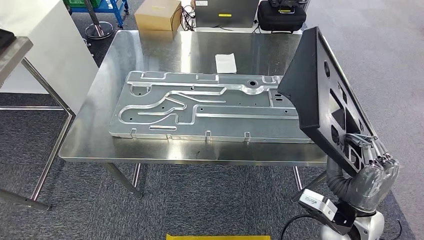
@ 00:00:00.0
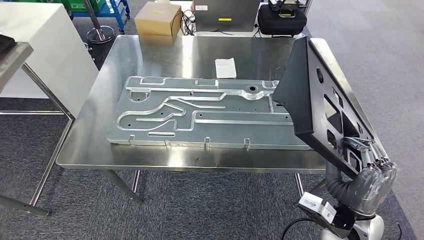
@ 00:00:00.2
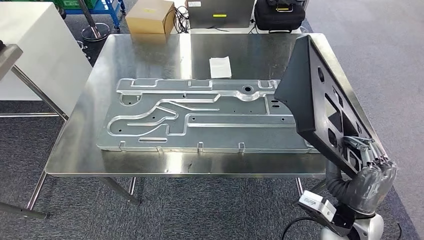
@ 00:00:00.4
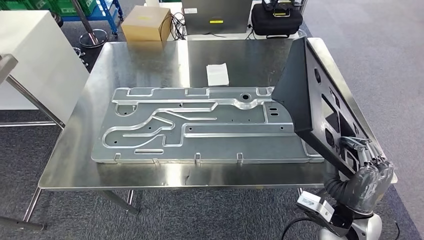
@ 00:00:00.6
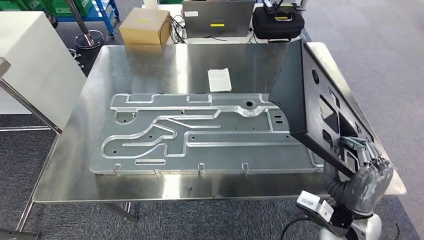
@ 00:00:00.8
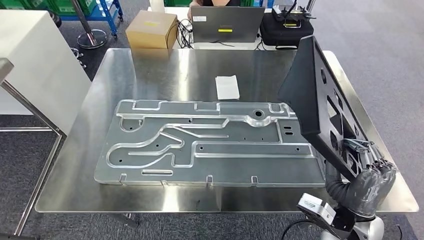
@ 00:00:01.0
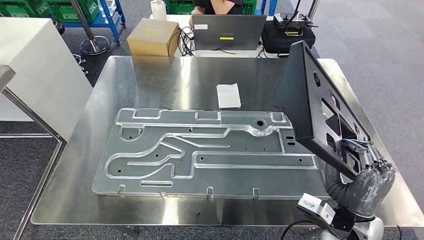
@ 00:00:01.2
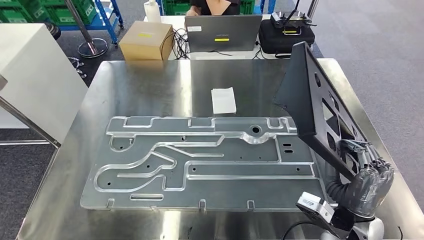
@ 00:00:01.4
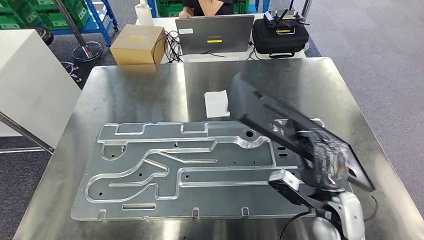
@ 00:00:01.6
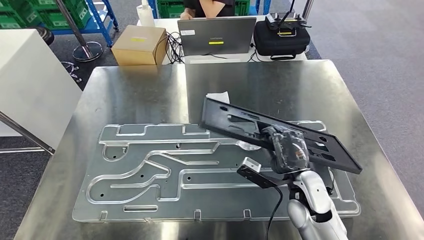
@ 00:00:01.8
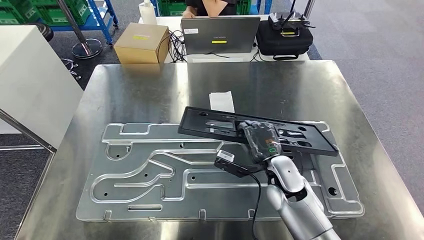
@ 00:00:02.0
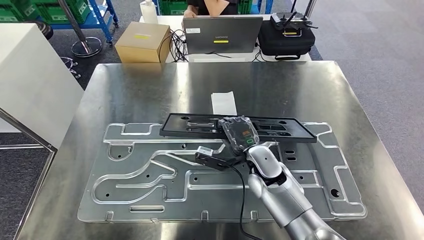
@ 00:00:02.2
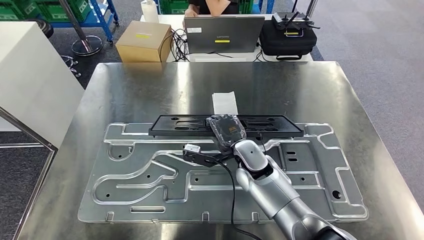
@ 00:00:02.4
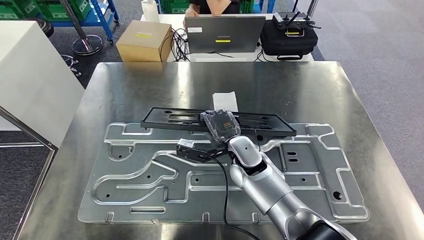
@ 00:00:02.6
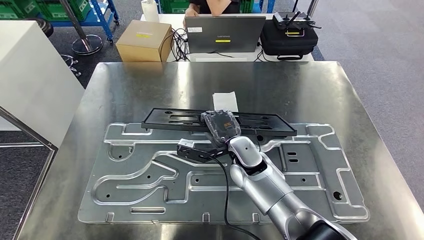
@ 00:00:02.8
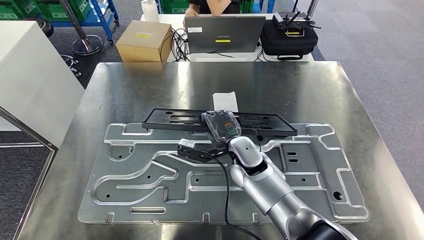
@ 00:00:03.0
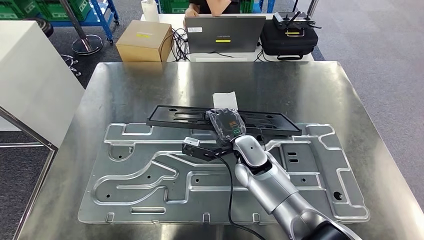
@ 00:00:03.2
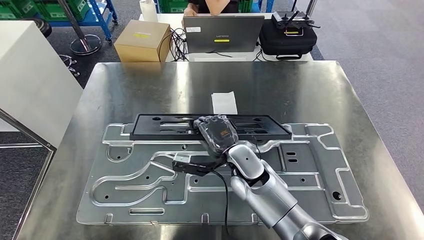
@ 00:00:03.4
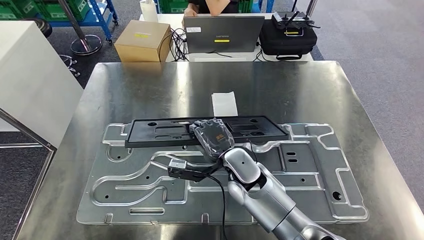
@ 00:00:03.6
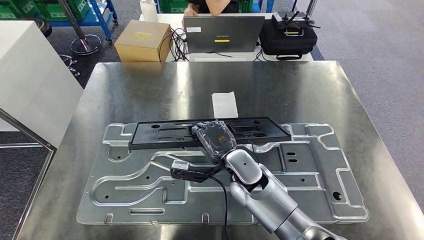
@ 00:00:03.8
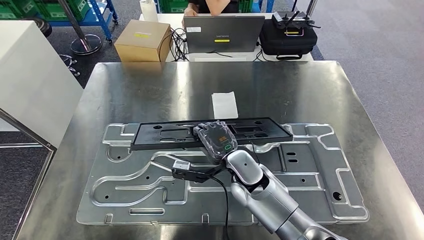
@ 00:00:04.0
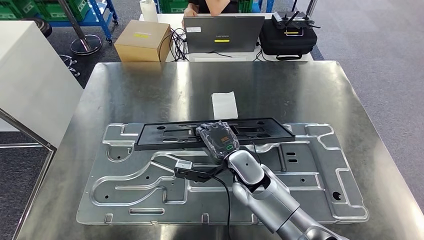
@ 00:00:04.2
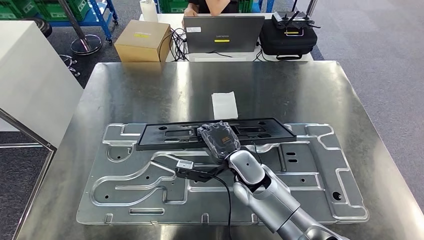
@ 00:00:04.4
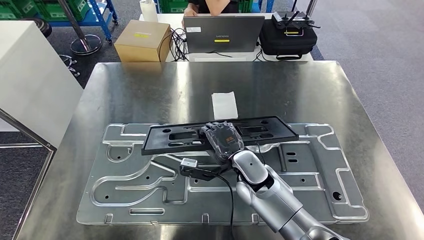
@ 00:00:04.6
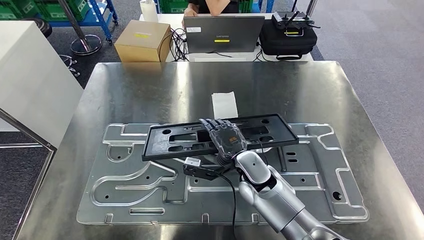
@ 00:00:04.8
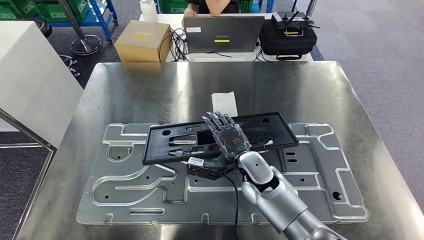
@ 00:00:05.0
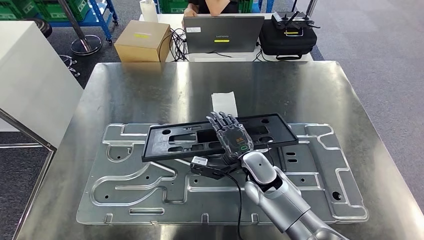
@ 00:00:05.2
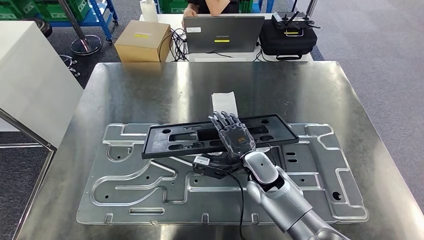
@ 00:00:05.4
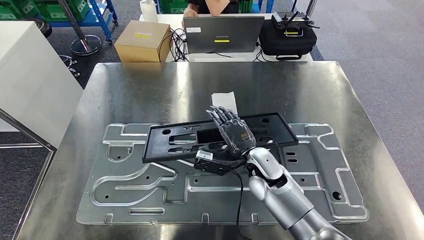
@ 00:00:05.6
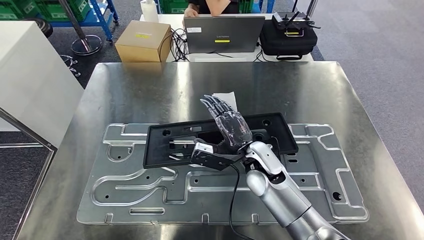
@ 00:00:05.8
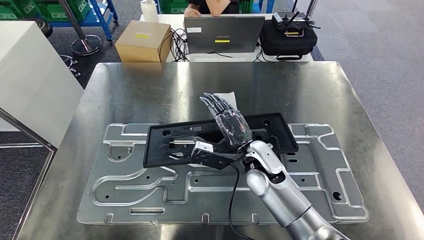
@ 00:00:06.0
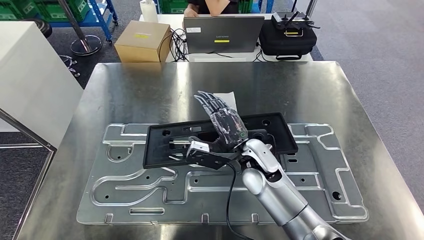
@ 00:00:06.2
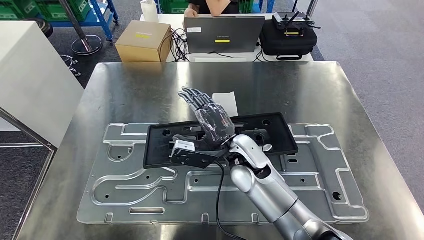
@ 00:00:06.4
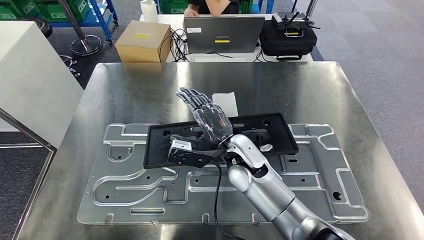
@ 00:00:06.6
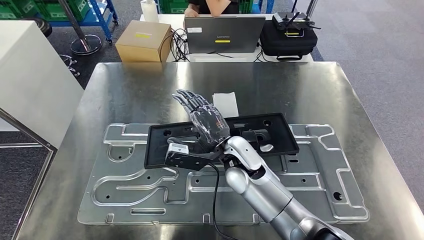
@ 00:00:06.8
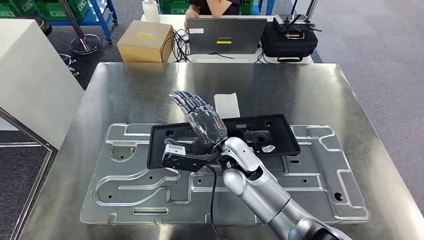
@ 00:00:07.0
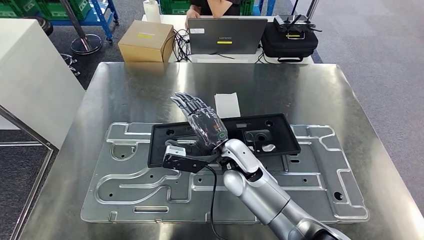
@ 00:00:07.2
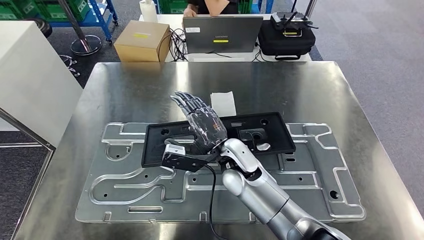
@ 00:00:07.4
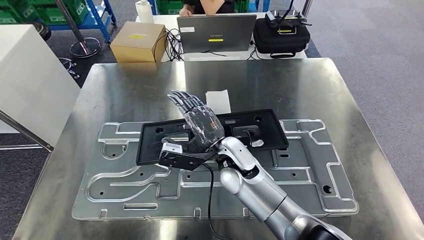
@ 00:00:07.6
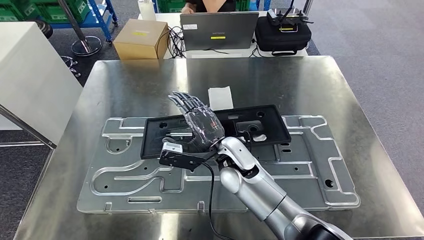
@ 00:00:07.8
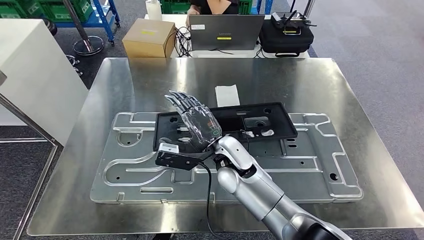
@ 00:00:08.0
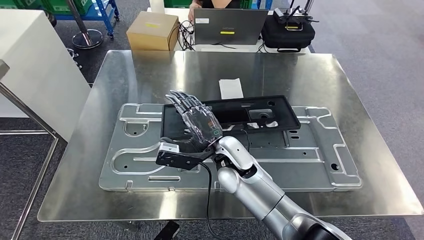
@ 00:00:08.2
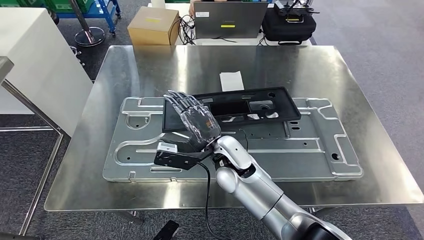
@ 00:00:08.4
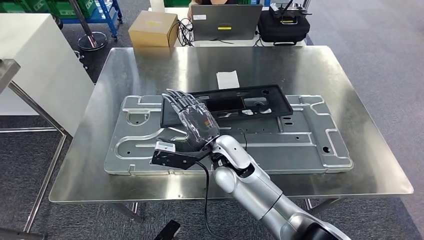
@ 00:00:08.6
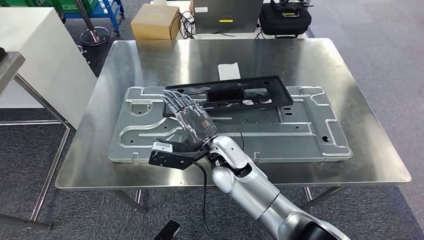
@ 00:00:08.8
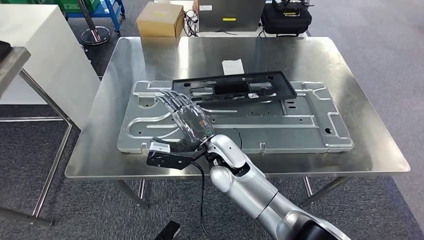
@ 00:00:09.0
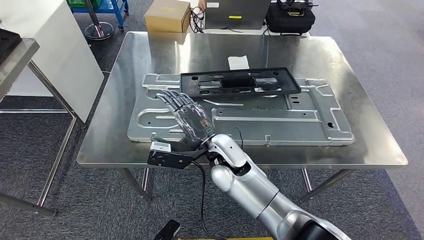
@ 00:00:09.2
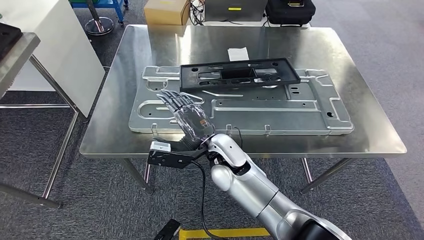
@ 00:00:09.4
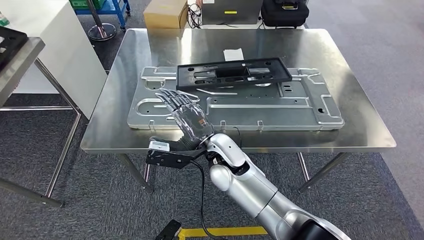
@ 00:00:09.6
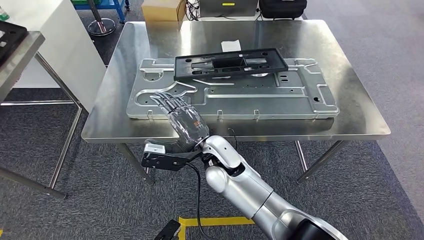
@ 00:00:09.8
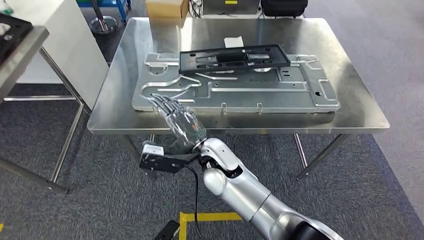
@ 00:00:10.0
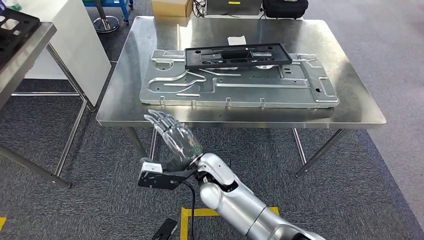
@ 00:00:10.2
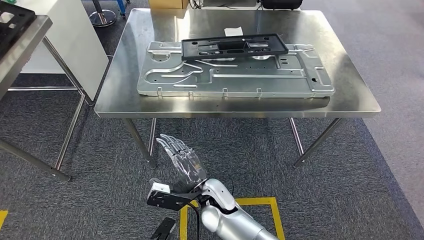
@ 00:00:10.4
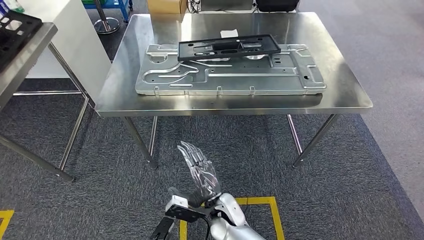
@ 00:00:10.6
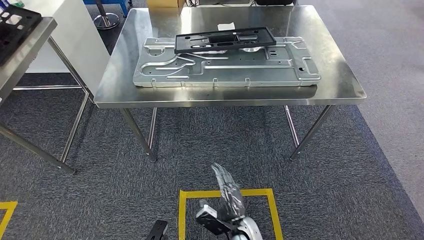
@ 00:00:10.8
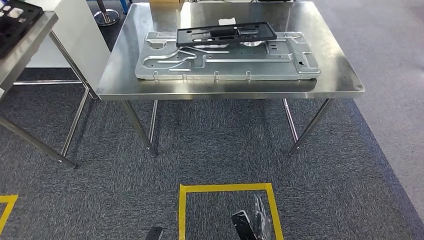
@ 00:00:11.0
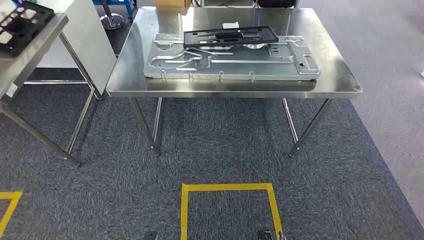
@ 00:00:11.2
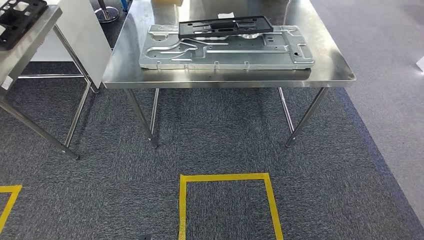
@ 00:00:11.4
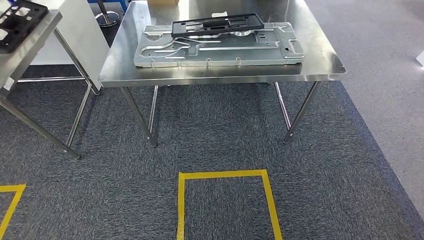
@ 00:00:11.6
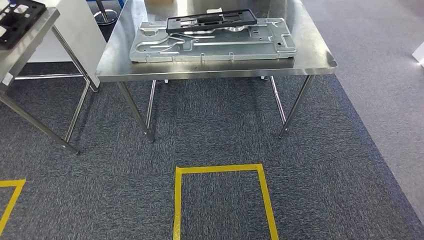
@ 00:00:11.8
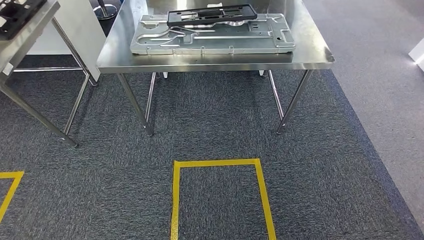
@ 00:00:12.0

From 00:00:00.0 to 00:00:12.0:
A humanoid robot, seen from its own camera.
Step, from 00:00:00.0 to 00:00:11.0: Insert the large material into the corresponding slot on the workbench.
From 00:00:03.0 to 00:00:04.4: The left hand heads to the right, covering approximately 5 cm.

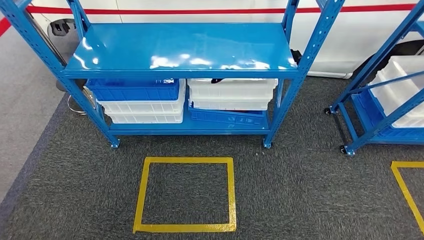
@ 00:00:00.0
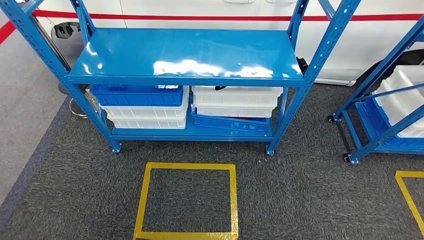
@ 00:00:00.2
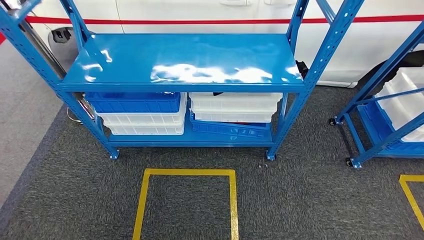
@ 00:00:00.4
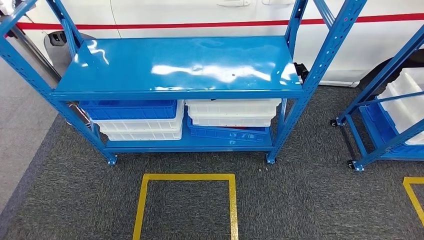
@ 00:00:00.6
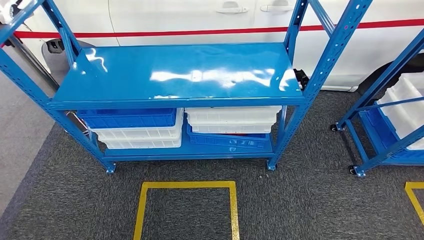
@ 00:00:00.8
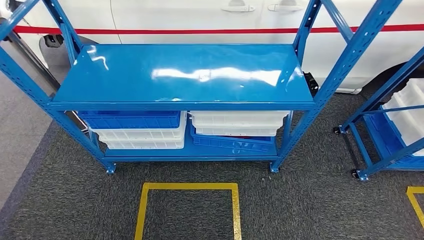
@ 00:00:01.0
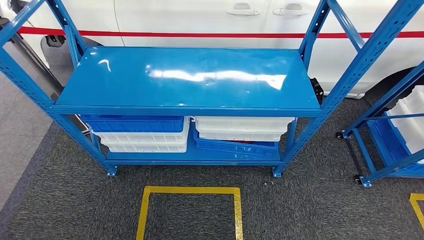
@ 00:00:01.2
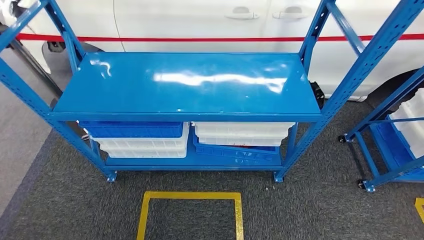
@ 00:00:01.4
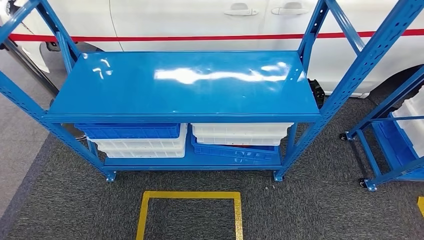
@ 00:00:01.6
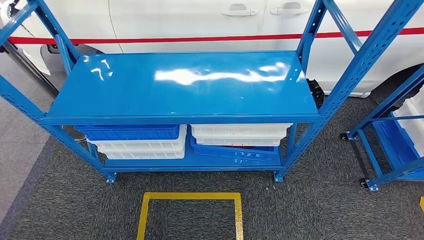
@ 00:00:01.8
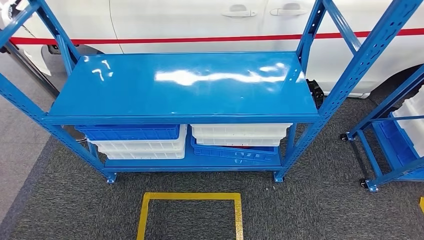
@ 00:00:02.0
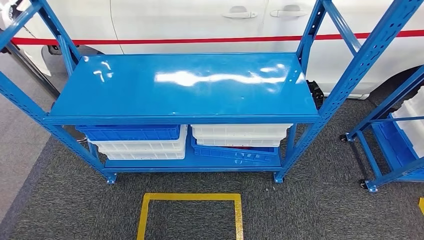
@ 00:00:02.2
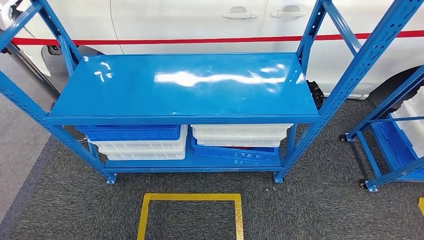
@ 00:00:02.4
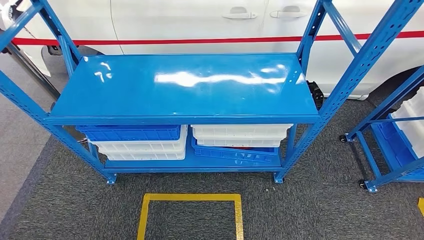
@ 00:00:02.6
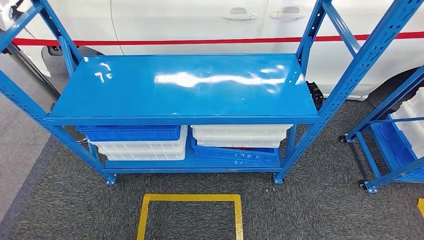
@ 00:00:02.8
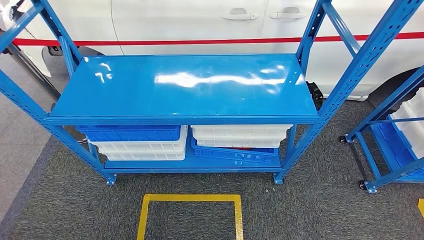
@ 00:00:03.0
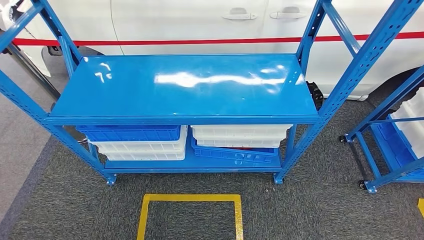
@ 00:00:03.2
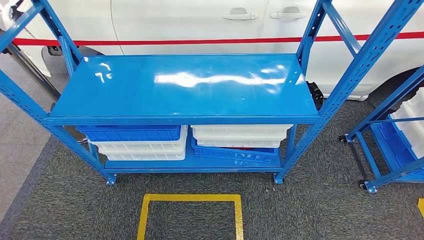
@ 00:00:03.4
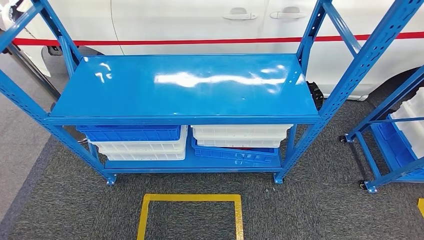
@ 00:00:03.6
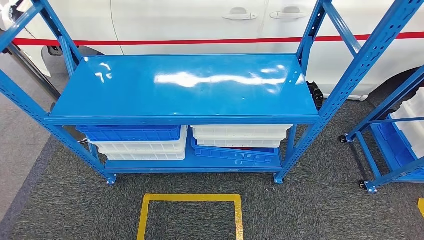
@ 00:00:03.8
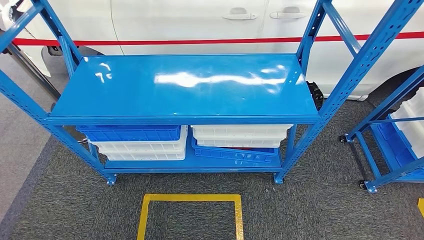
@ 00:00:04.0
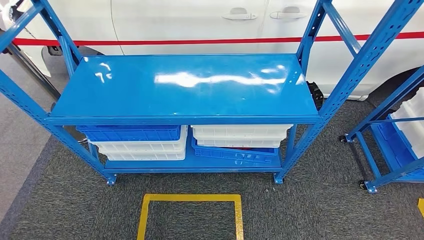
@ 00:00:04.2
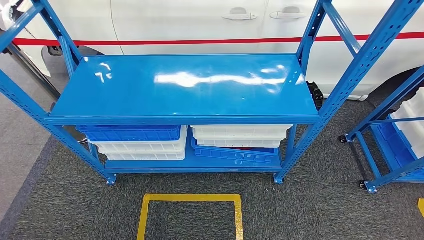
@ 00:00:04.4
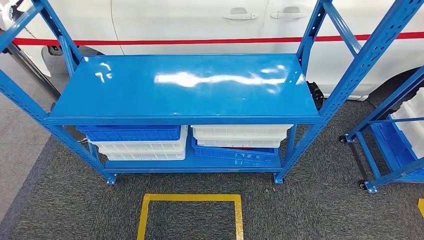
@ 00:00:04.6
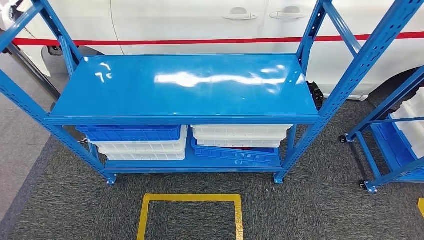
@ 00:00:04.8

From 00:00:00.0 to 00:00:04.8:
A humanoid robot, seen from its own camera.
Step, from 00:00:00.0 to 00:00:04.8: Move to the initial position of the shelf.
